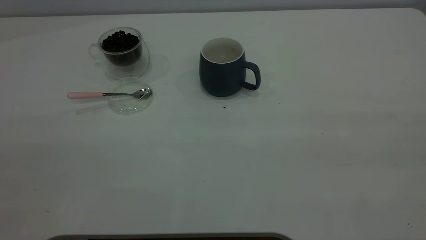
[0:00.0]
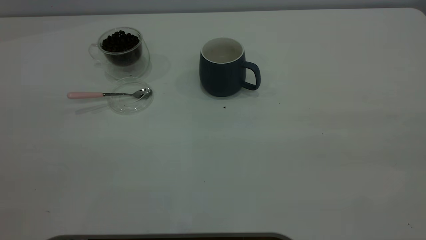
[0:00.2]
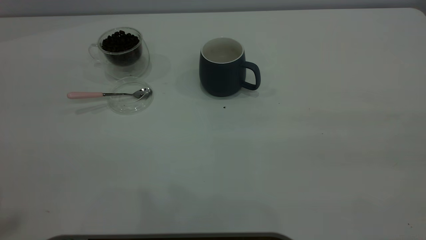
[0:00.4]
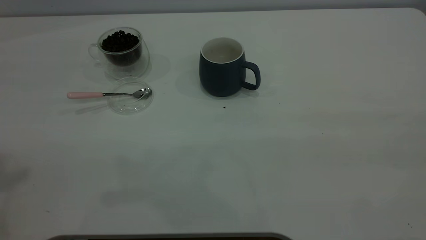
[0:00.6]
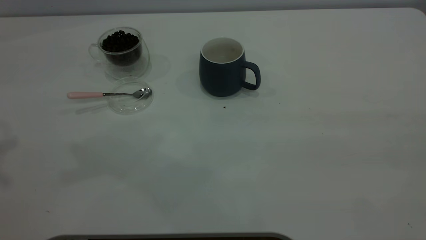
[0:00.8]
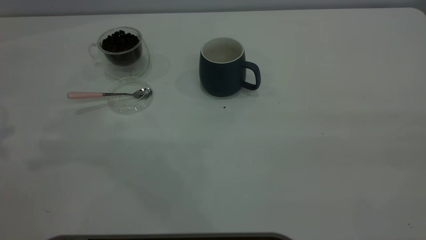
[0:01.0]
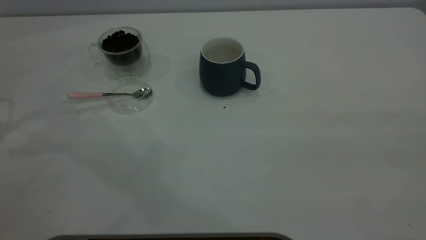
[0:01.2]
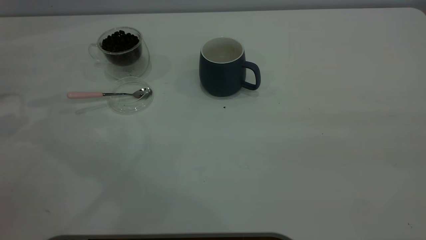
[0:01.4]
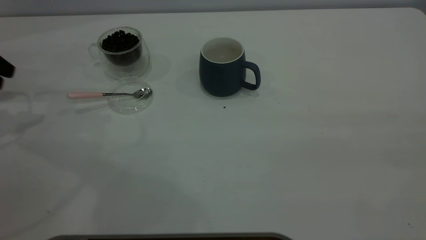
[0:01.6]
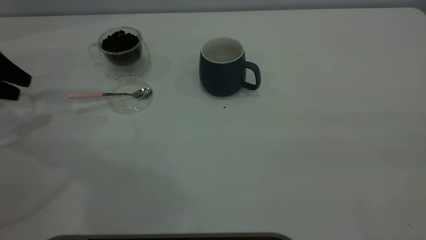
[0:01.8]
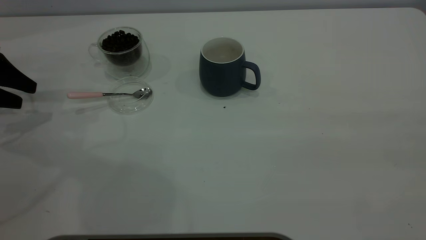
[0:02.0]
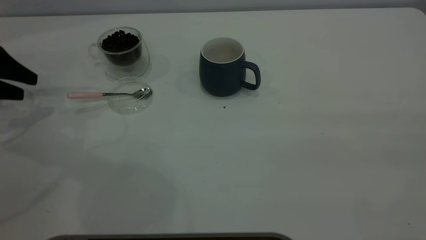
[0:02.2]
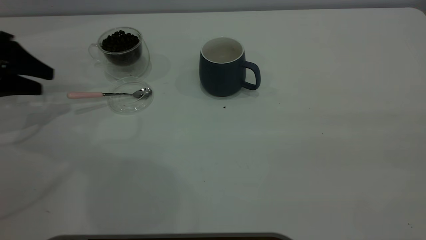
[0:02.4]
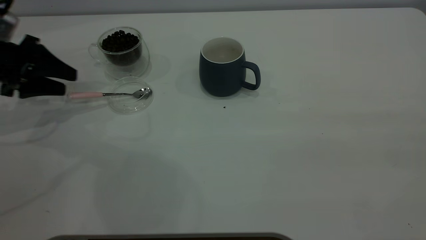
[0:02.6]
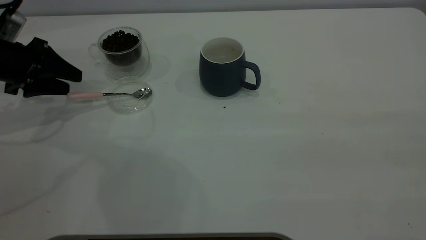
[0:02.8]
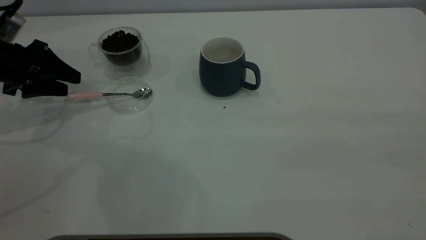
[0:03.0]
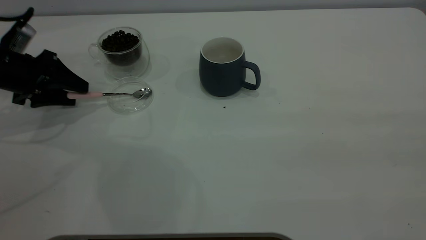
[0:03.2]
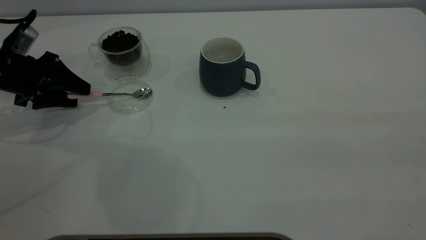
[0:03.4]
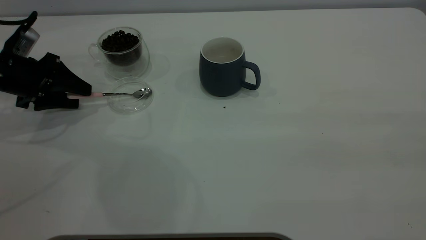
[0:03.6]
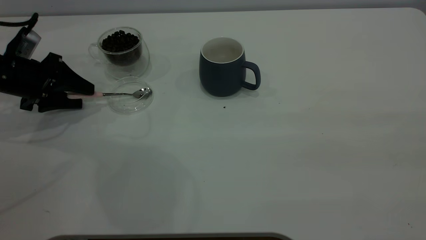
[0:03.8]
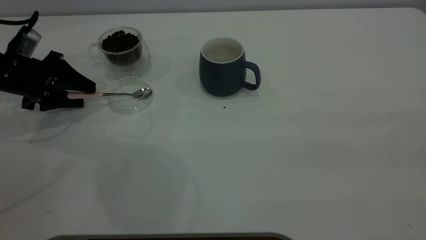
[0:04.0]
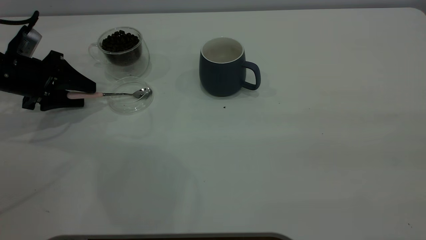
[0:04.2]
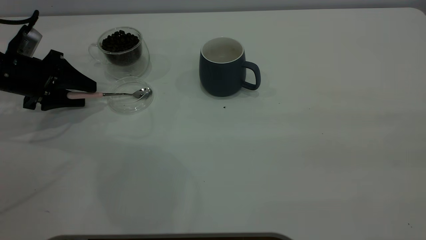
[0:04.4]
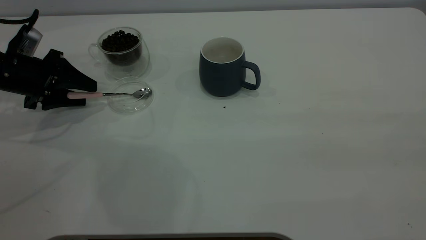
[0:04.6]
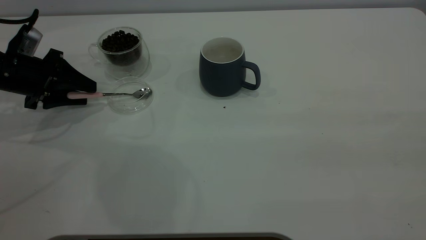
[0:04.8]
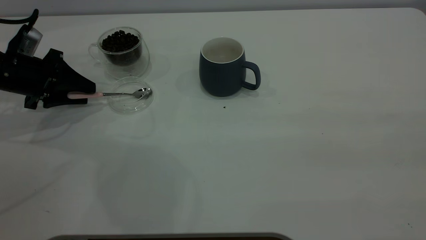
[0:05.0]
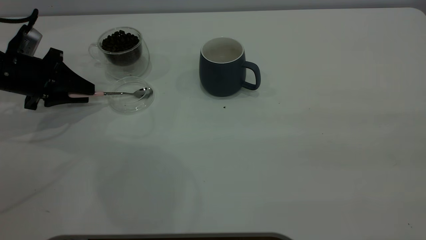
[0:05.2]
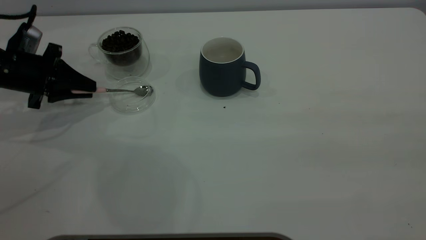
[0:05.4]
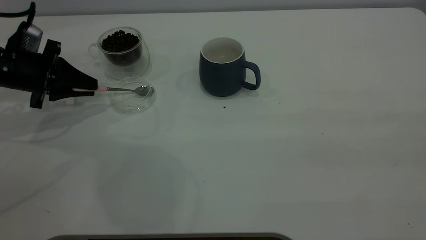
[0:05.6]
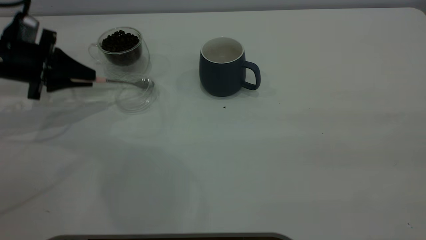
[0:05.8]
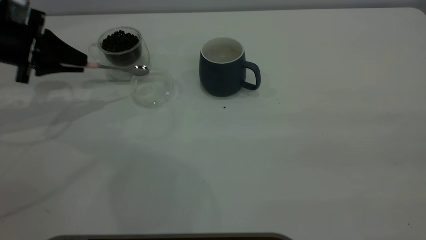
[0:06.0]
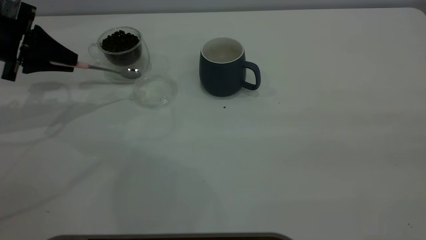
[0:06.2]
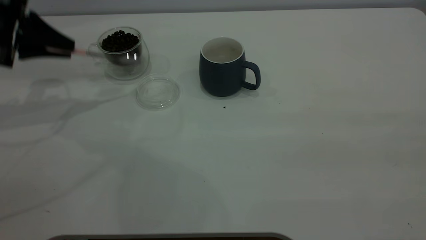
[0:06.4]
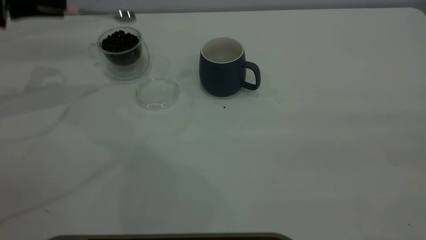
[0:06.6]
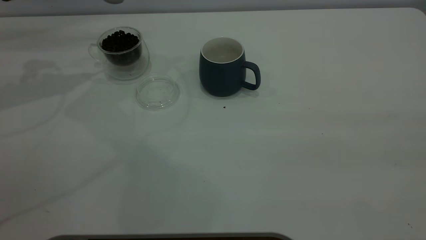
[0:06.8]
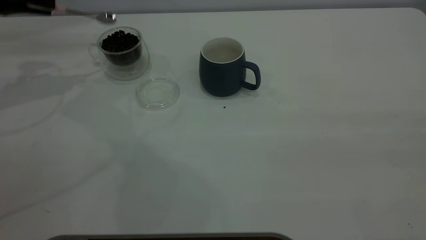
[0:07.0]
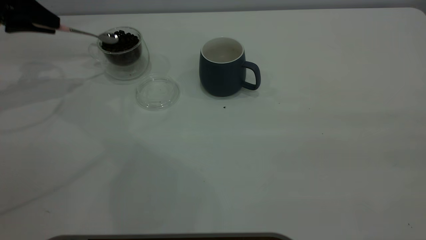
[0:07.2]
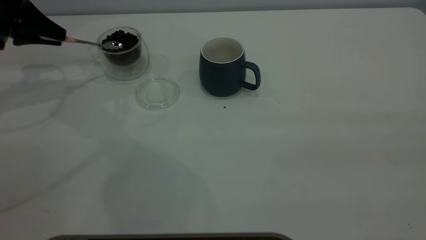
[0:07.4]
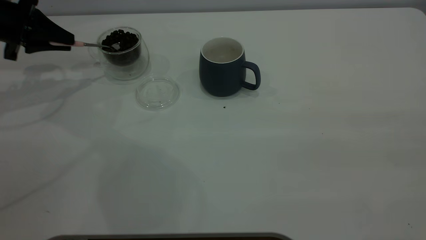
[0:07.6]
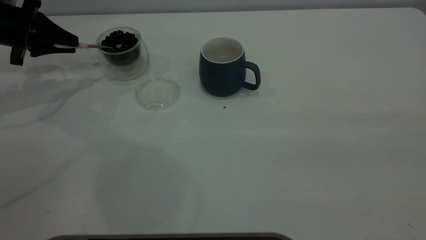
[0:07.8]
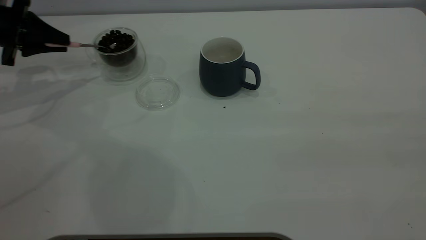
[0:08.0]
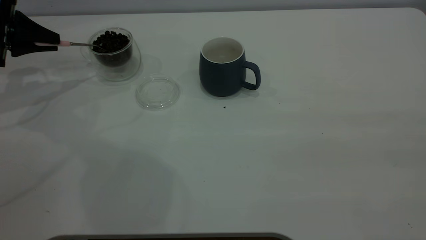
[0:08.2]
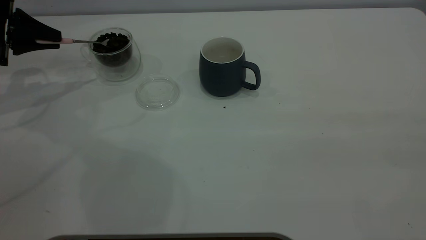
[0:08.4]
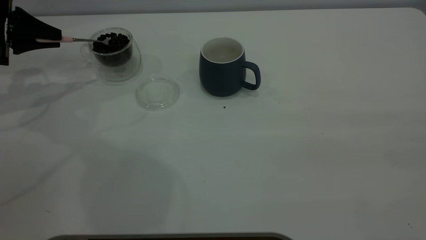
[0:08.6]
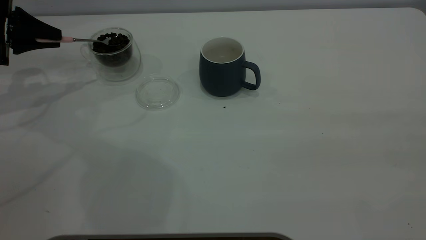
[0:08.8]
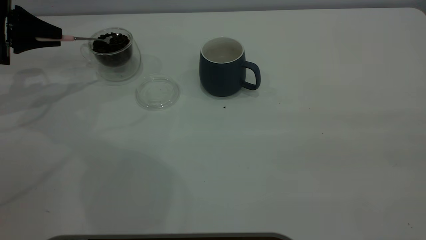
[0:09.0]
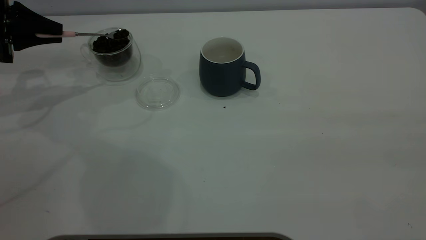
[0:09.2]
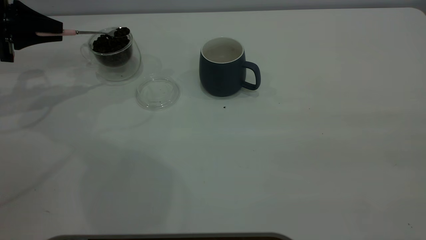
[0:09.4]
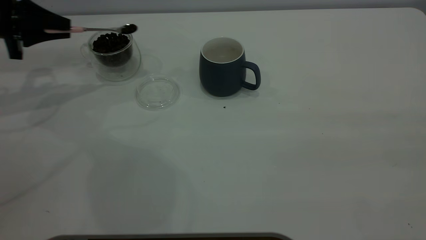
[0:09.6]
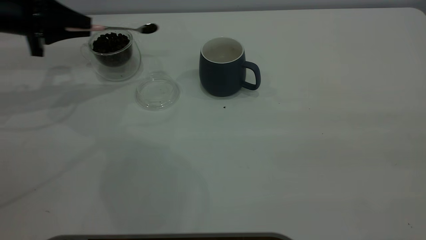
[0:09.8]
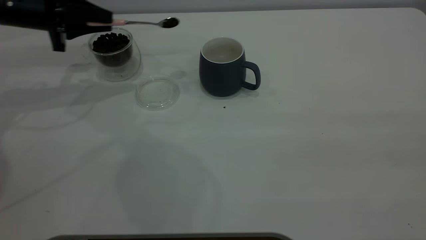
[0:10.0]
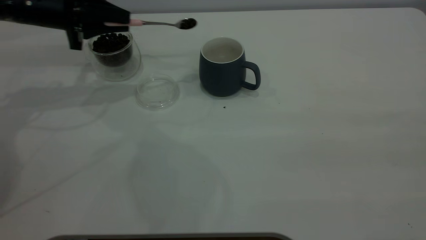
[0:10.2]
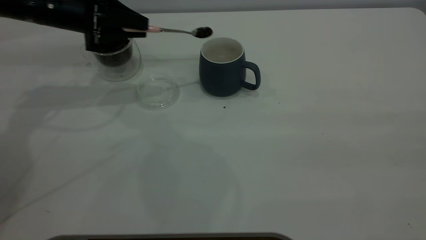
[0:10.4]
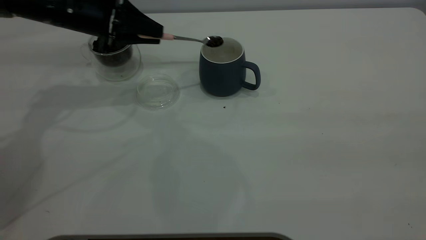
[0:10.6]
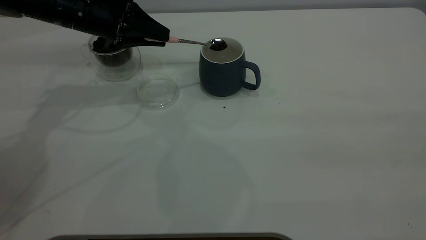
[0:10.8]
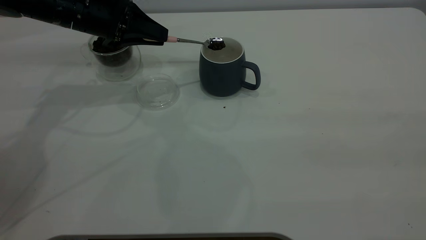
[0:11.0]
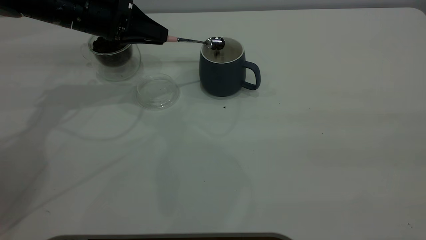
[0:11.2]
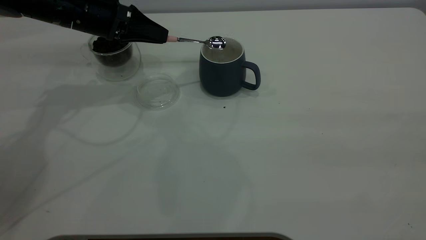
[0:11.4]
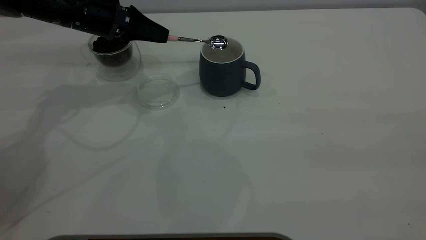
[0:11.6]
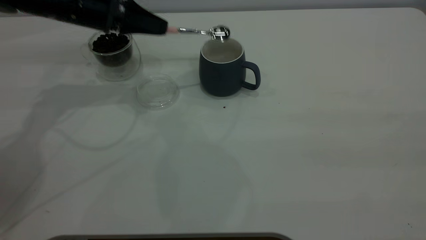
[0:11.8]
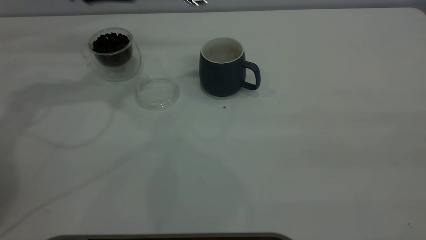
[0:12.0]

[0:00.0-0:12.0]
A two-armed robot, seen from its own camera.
Task of the whole recording: the right gripper place the grey cup in the center of the table, the left gripper take the pink spoon from the cup lid and scoop out the coffee beans from the coffee cup and put them into the grey cup, the left gripper put the spoon back into the cup lid.
Step, 0:00.0 to 0:06.2: Pick up the spoon.
Step, 0:06.4 to 0:11.8: Scoop a spoonful of beans into the cup.
0:01.6 to 0:03.0: The left gripper travels downward and to the right by about 10 cm.
0:03.0 to 0:04.4: The grippers make only small movements.
0:04.4 to 0:06.0: The left gripper heads upward, covering approximately 5 cm, and closes its fingers.
0:06.0 to 0:07.6: The left gripper heads forward, covering some 5 cm, and goes upward and returns, some 10 cm each way.
0:07.6 to 0:09.0: The grippers move only a little.
0:09.0 to 0:10.4: The left gripper moves to the right, approximately 15 cm.
0:10.4 to 0:12.0: The left gripper goes about 5 cm upward.

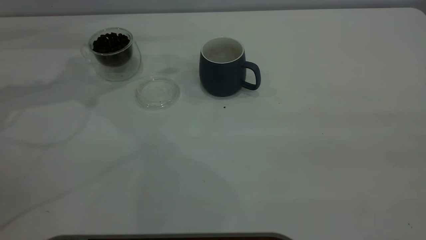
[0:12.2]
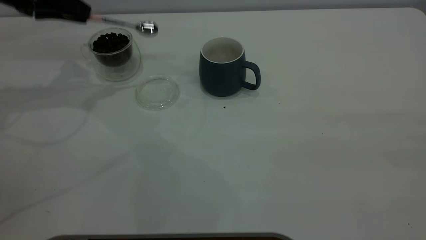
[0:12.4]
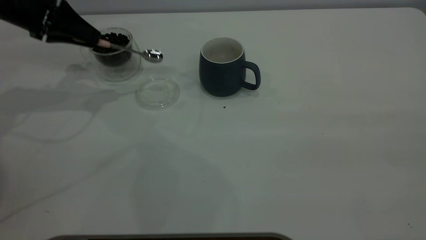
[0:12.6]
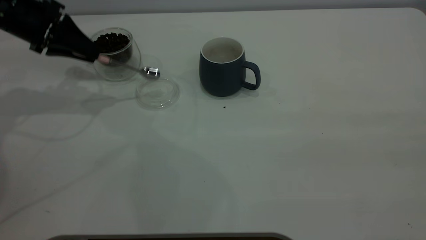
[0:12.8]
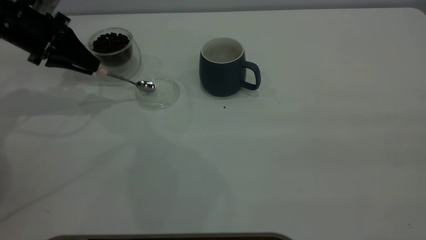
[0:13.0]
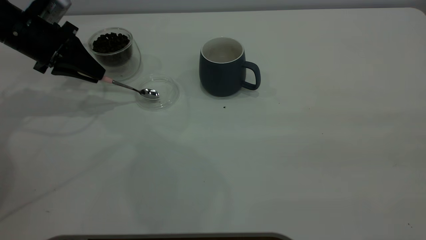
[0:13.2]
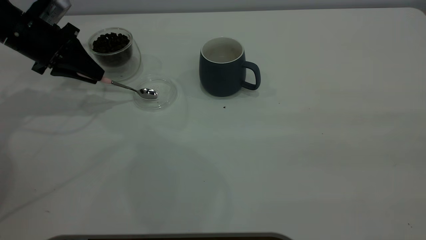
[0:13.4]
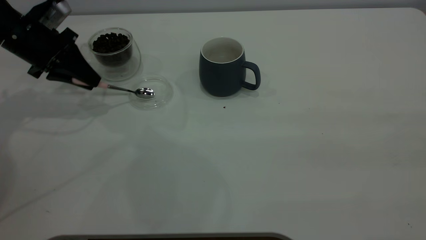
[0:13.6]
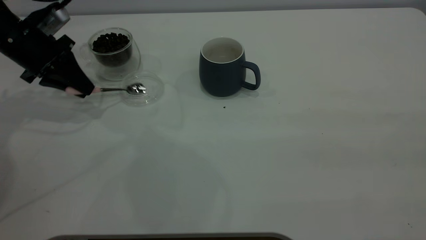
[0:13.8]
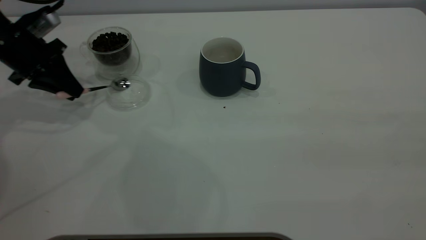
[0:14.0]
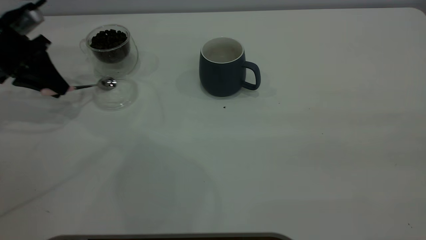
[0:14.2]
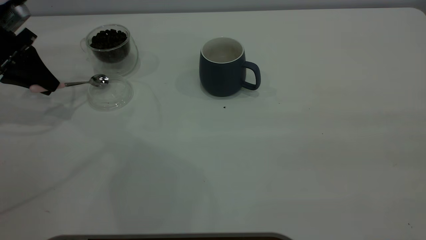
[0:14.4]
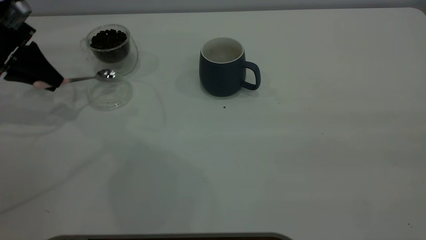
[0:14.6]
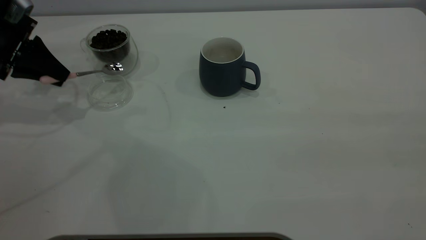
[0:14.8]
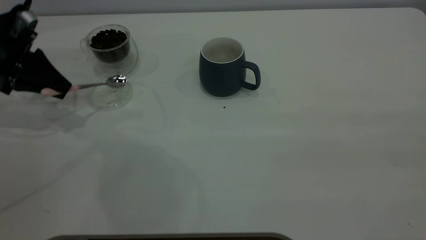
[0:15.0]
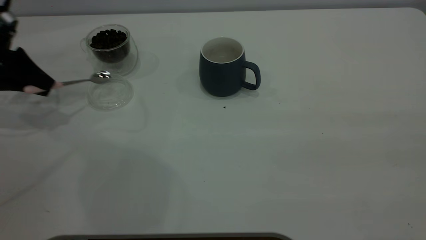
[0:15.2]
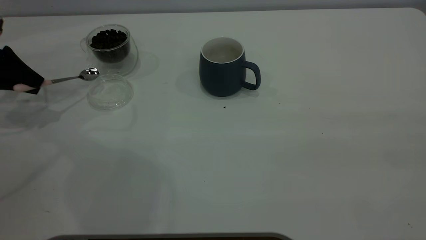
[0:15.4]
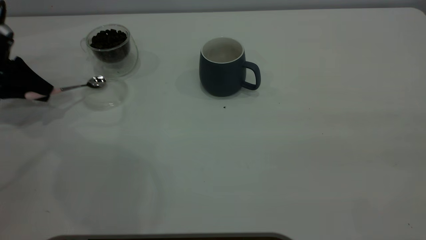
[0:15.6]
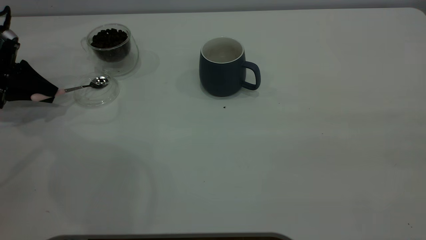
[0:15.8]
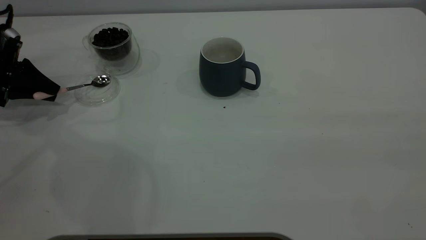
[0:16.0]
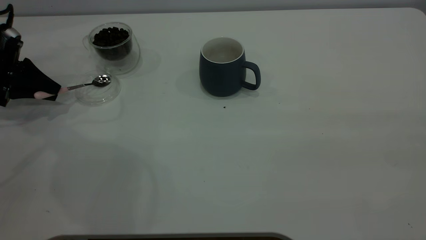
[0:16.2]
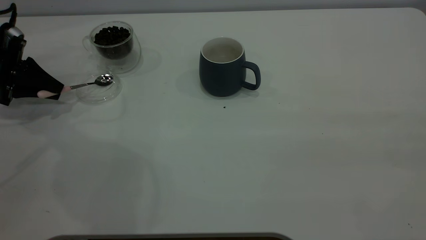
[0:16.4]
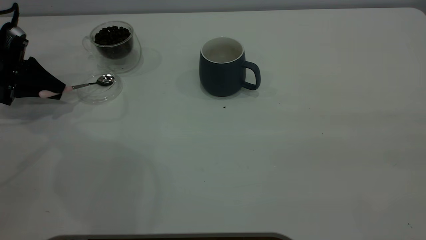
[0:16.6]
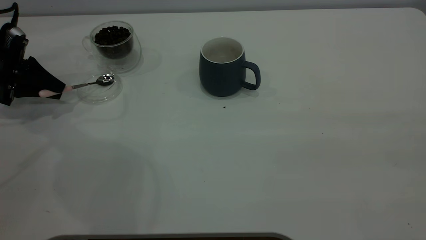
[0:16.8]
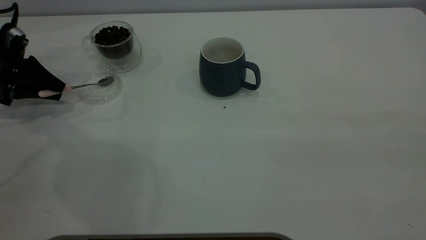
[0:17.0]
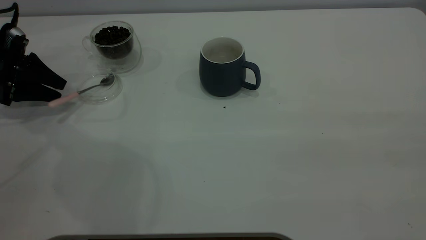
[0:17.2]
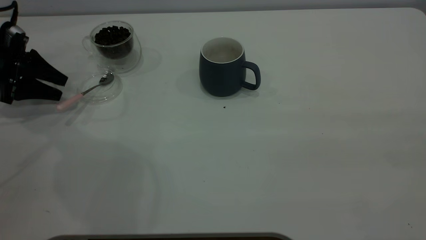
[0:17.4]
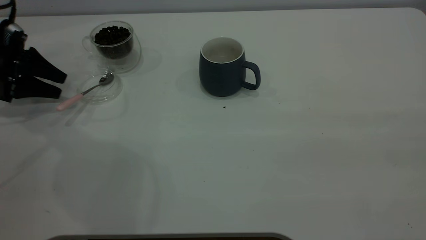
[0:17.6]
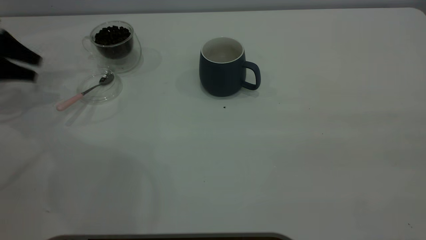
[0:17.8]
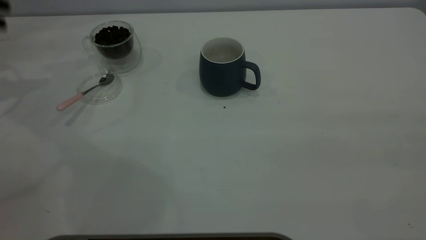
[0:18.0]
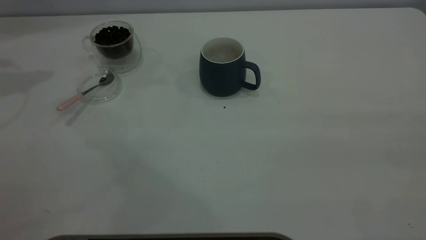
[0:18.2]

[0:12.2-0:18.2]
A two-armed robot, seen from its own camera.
Task of the whole recording: the right gripper place the grey cup in the center of the table, the left gripper take the pink spoon from the cup lid and scoop out the coffee beans from the coffee cup and put them into the grey cup, the left gripper put the spoon back into the cup lid.
Step, 0:12.2 to 0:17.6: Place the spoon back in its original place.
0:12.2 to 0:13.8: The left gripper moves downward, roughly 10 cm.
0:13.8 to 0:15.2: The left gripper moves to the left, roughly 10 cm.
0:15.2 to 0:16.6: The left gripper shifts by approximately 5 cm.
0:16.6 to 0:18.2: The left gripper moves upward, about 30 cm, and opens its fingers.
